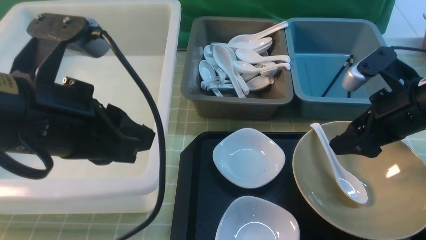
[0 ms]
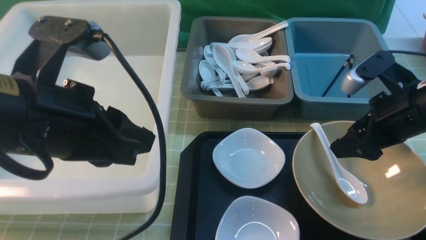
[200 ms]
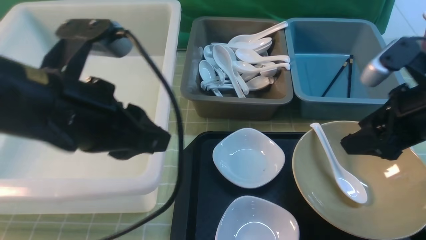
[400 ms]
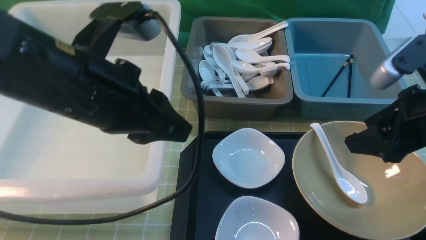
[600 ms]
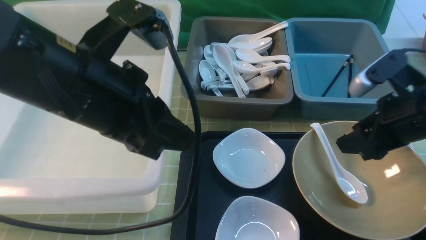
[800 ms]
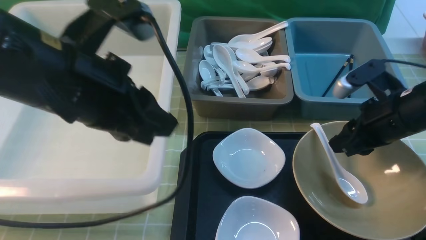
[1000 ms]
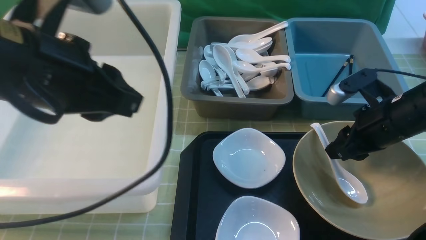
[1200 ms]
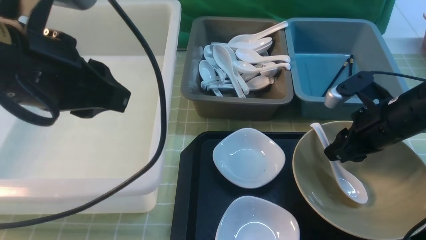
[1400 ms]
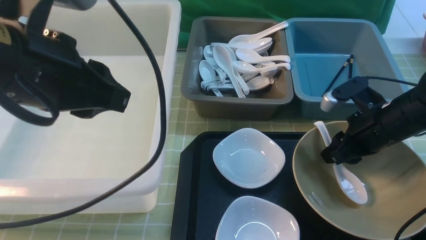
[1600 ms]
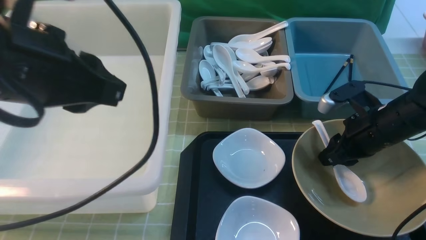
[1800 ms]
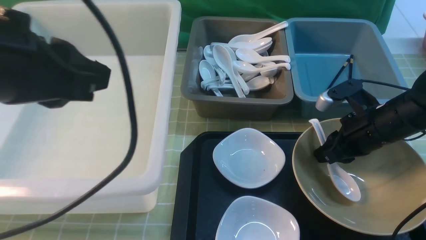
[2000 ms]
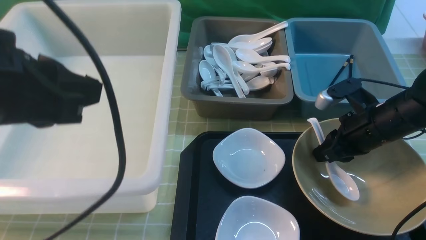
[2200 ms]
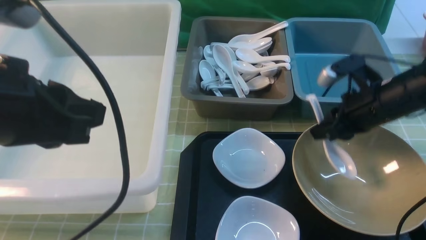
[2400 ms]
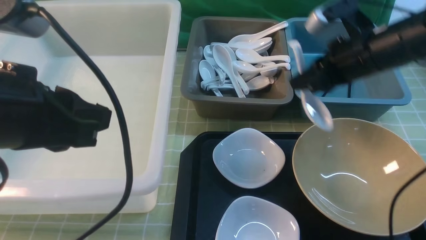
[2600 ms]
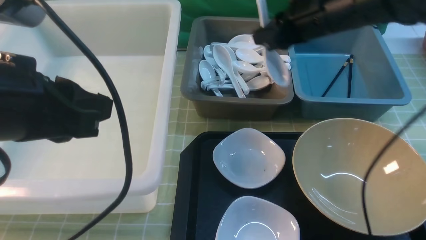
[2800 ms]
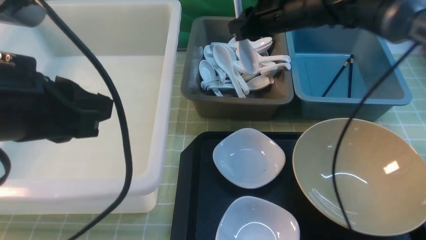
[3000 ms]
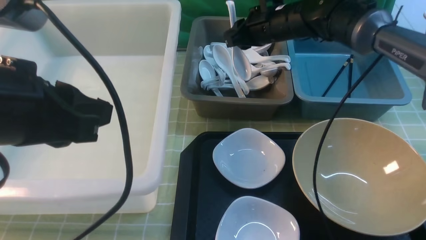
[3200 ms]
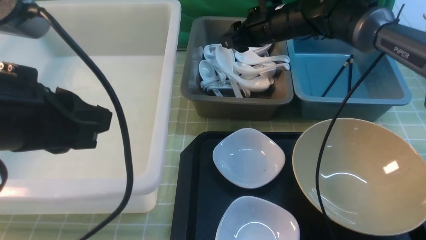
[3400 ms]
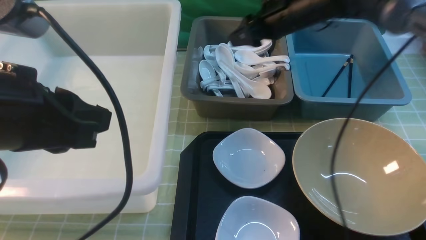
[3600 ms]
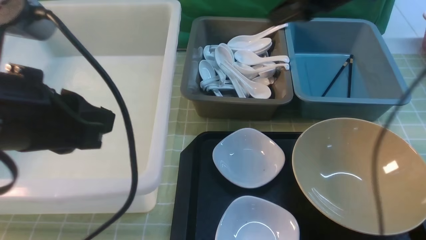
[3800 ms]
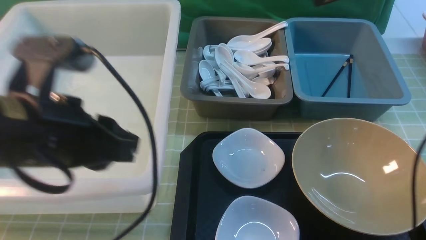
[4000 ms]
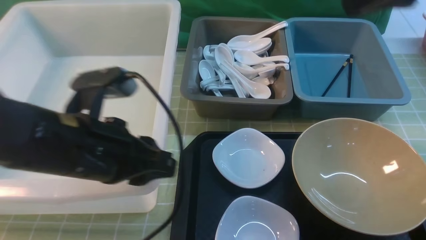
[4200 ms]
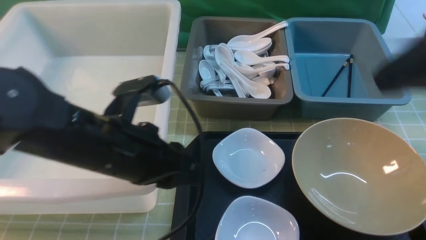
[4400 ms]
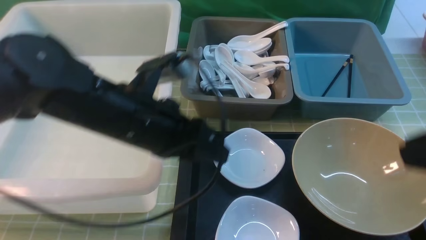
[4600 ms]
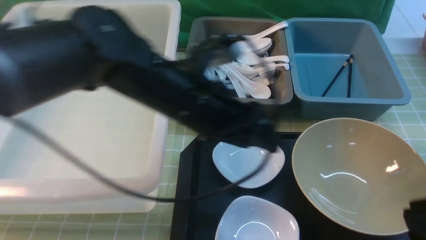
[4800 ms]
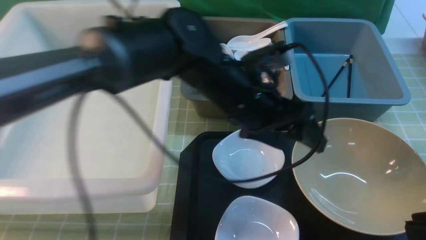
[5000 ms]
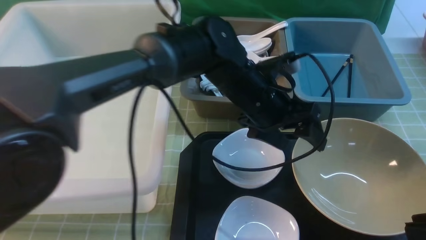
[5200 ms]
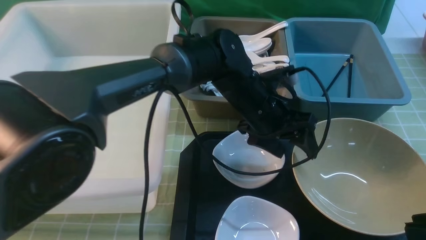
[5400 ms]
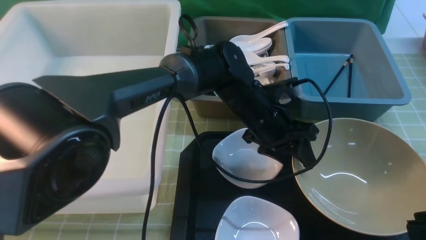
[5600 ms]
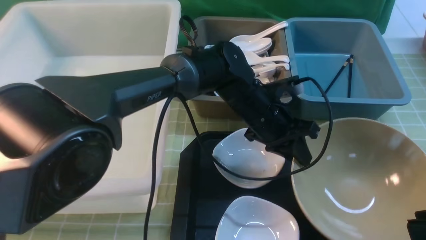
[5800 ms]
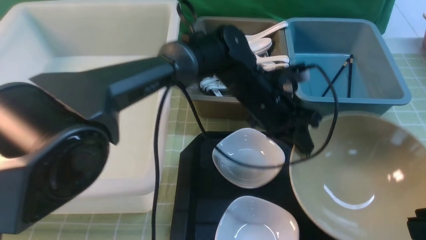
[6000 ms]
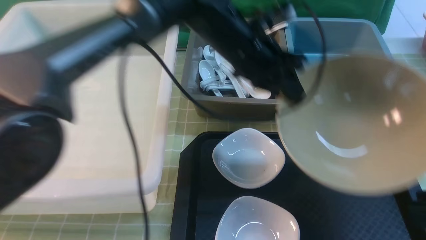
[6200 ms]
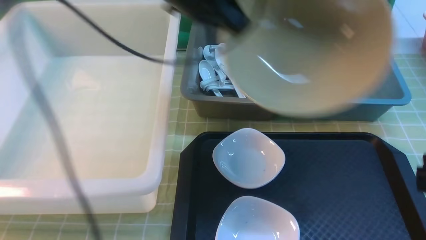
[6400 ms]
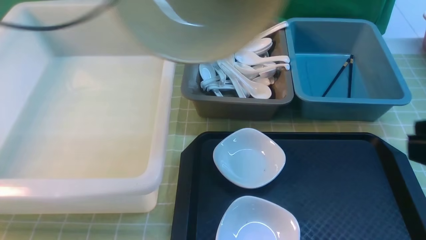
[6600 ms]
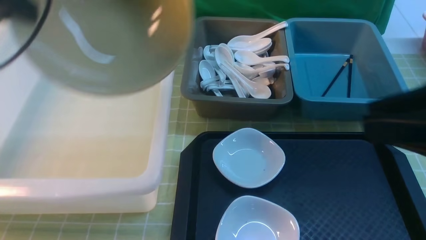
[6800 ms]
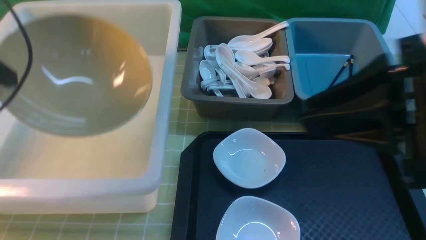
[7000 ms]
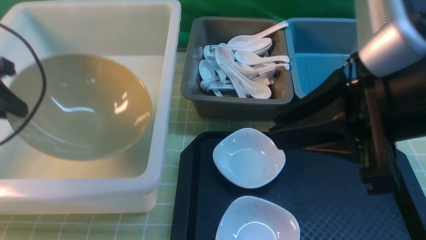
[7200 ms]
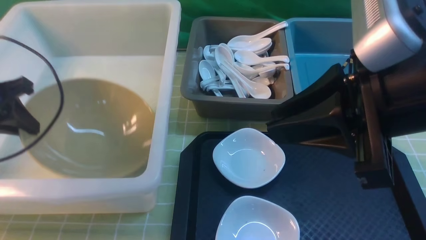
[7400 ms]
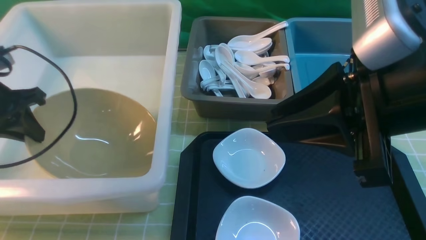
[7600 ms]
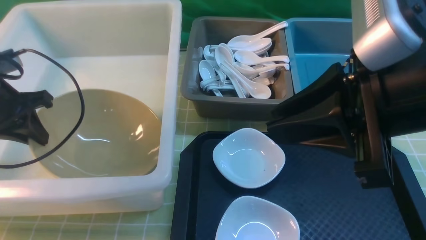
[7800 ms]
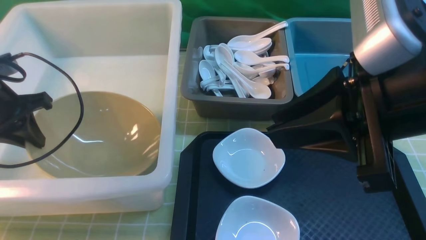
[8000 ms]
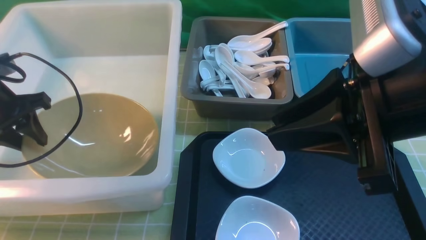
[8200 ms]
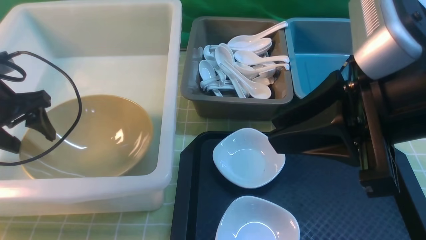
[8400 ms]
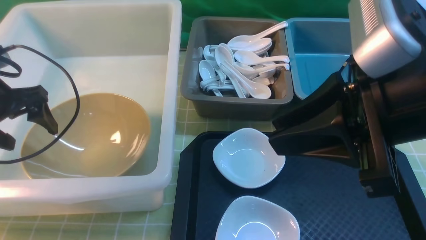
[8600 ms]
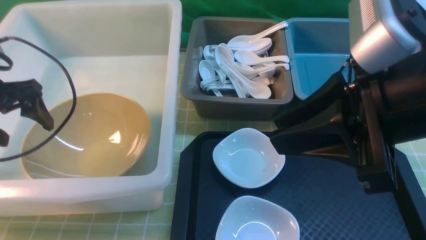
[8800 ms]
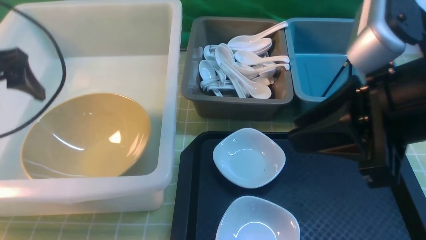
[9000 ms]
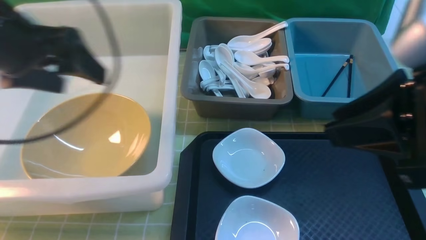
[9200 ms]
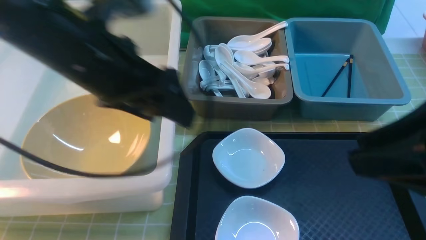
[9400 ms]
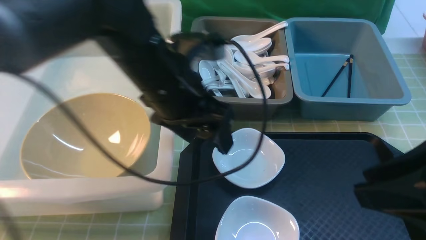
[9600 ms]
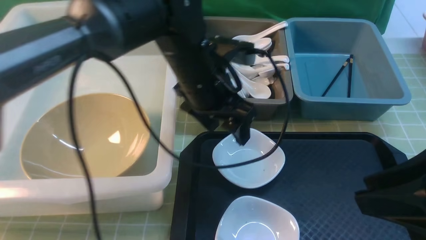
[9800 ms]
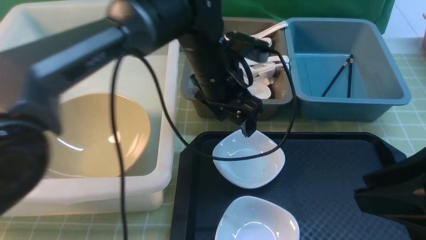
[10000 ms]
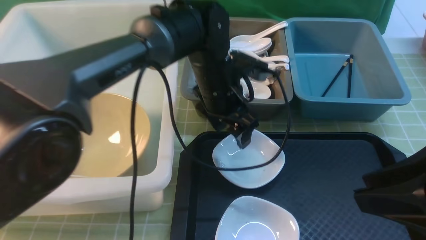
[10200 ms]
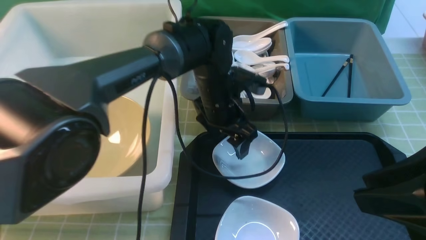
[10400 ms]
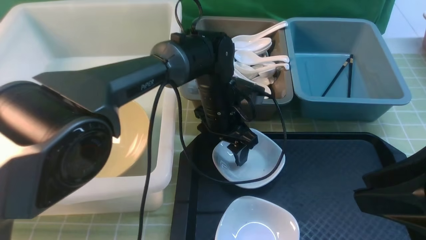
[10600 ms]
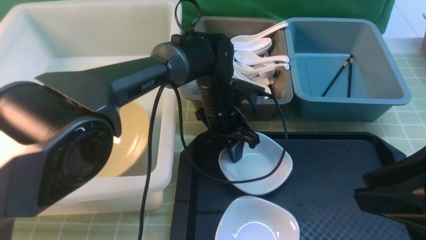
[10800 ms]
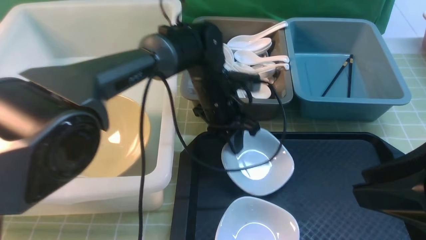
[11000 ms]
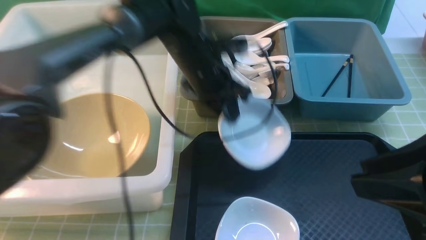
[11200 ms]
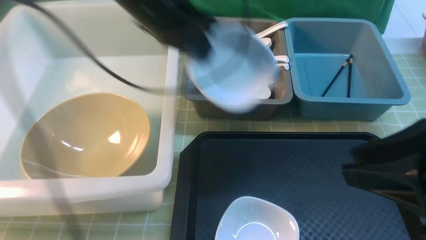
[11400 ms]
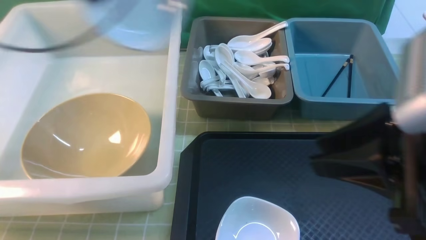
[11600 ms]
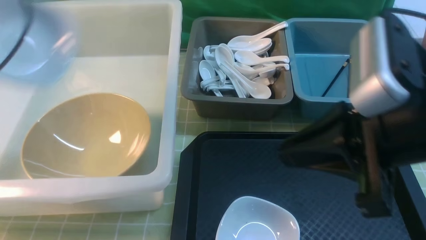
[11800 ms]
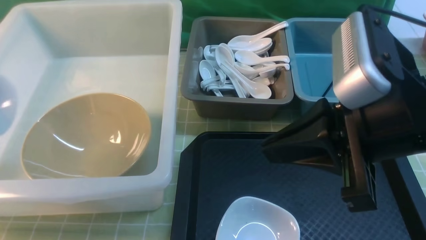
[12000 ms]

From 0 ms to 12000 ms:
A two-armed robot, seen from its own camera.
Task of the whole recording: on green table put chopsticks spoon bowls plates into blue grey white boxes.
Step, from 0 ms to 2400 ms: use the right arm to grab the soup spoon in the middle.
Step, from 2600 ms to 3600 ms: use the right arm to put the soup spoon into the small storage box in the middle.
Step, from 3800 ms to 6200 ms: use the left arm to grab the yellow noodle bowl on the left.
Step, from 6400 ms to 8400 ms: use the left arm to put the noodle bowl into the large storage box on the left.
Step, from 8800 ms to 11000 ms: use the left arm to grab the plate.
From 0 ms to 1600 ms: The right gripper goes roughly 10 cm downward, and closes its fingers.
From 1600 ms to 3000 ms: The right gripper heads forward, to the left and upward, covering roughly 20 cm.
From 3000 ms to 4400 ms: The right gripper goes some 30 cm backward, to the right and upward, and opens and closes again. The left gripper is displaced downward, to the right and forward by approximately 15 cm.
From 4400 ms to 6000 ms: The left gripper goes some 20 cm to the right and forward, and opens and closes again; the right gripper heads backward and downward, covering some 15 cm.
From 6000 ms to 7600 ms: The left gripper moves to the left, some 40 cm, while the right gripper shifts about 15 cm to the left, forward and upward.
From 7600 ms to 9000 ms: The left gripper shifts some 10 cm upward and to the right, and opens its fingers.
From 9000 ms to 10400 ms: The left gripper goes approximately 30 cm to the right and downward; the right gripper moves backward, about 5 cm.
From 10400 ms to 12000 ms: The right gripper shifts roughly 10 cm forward and to the left, and closes. Meanwhile the left gripper is displaced to the left and upward by approximately 40 cm, and closes.

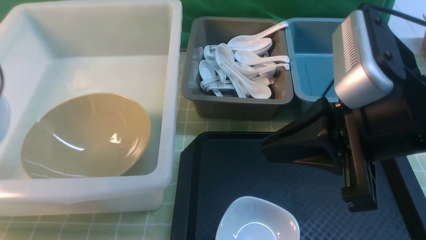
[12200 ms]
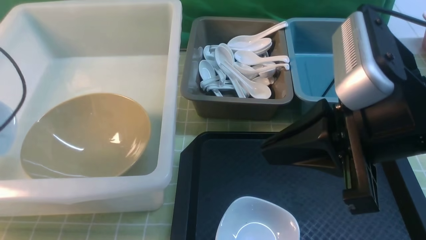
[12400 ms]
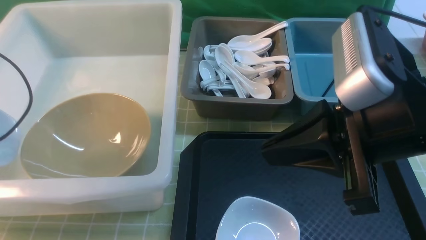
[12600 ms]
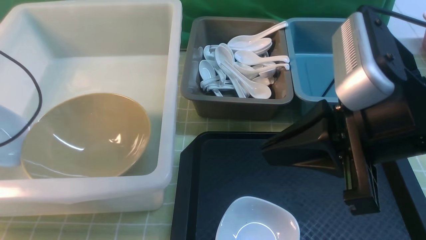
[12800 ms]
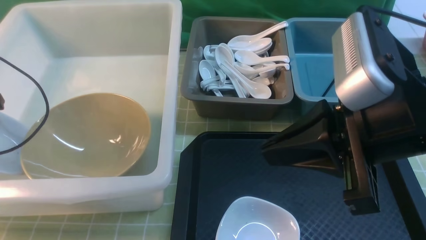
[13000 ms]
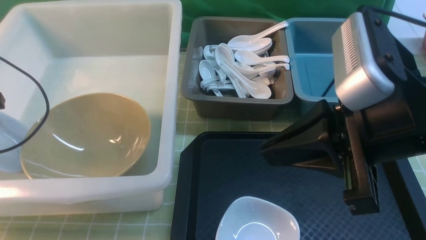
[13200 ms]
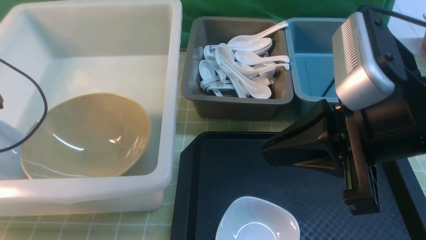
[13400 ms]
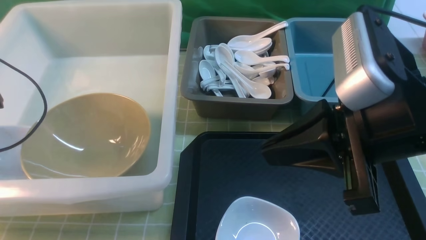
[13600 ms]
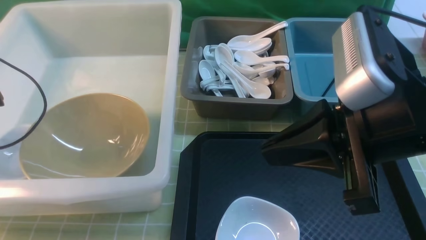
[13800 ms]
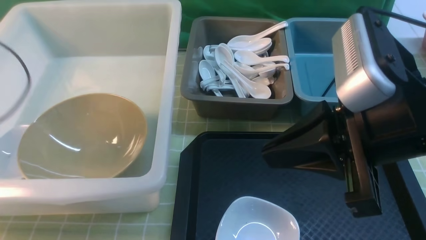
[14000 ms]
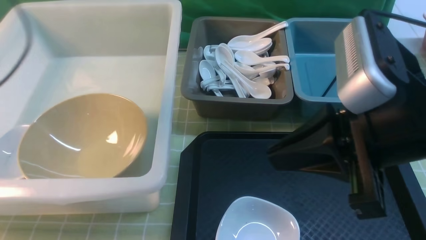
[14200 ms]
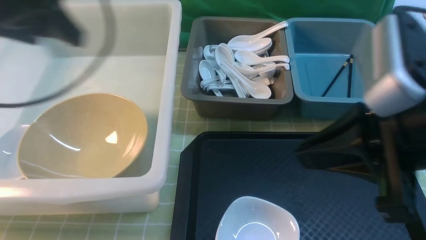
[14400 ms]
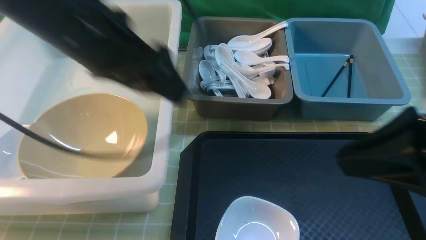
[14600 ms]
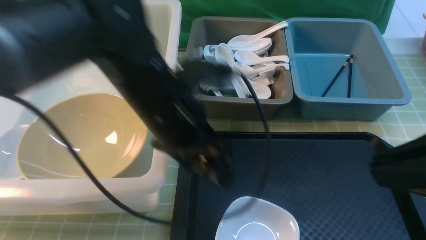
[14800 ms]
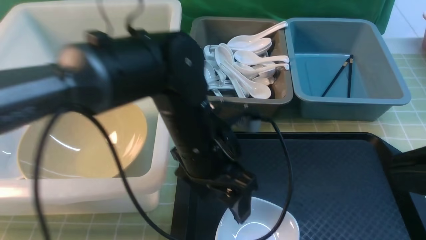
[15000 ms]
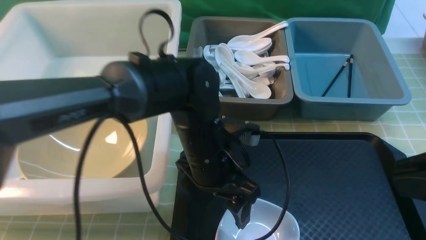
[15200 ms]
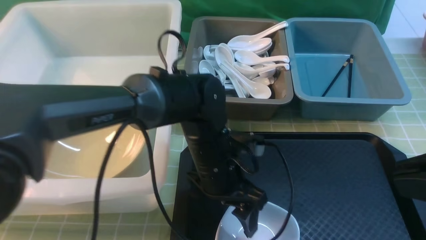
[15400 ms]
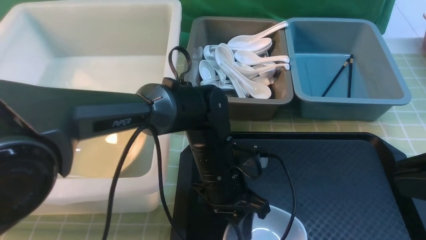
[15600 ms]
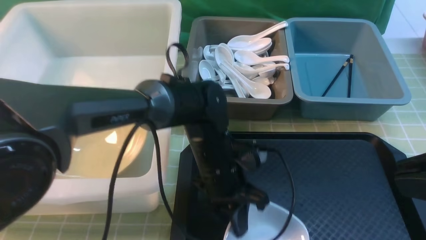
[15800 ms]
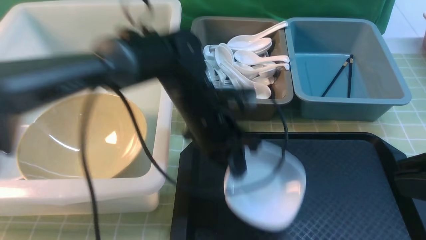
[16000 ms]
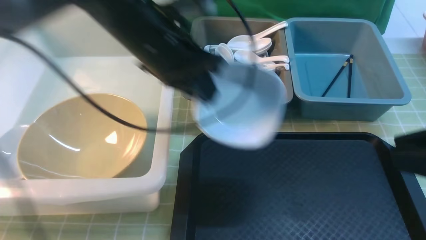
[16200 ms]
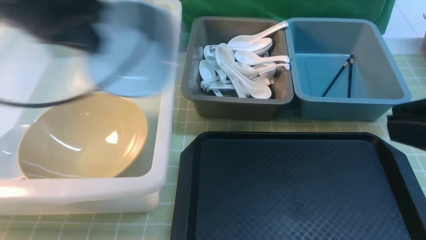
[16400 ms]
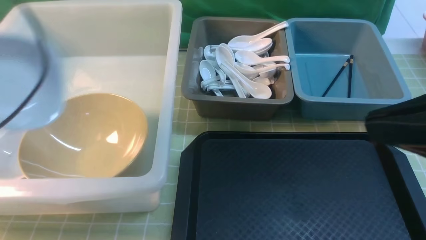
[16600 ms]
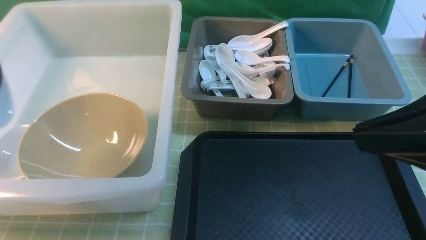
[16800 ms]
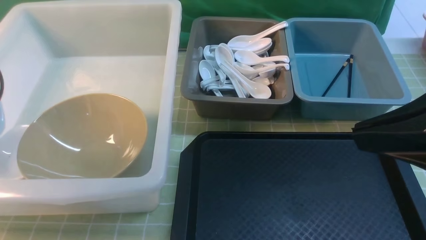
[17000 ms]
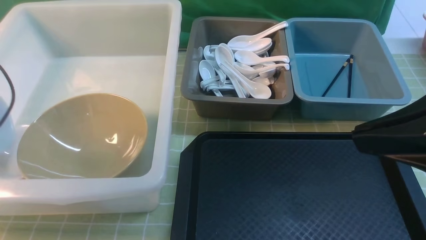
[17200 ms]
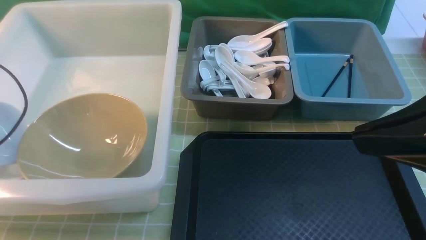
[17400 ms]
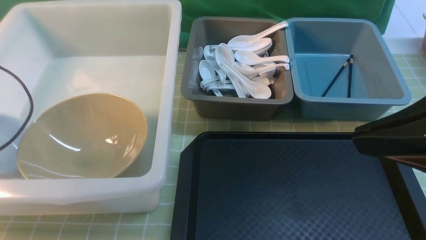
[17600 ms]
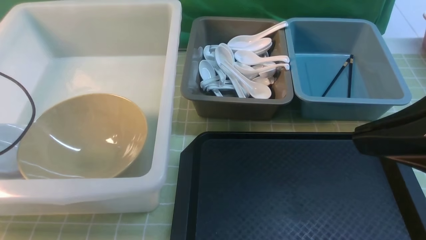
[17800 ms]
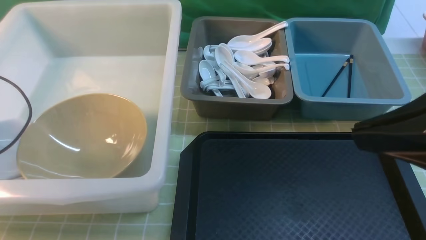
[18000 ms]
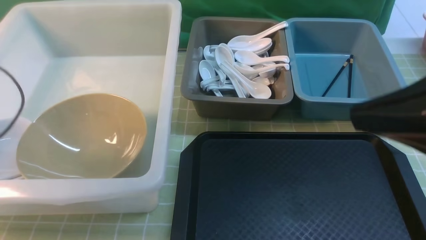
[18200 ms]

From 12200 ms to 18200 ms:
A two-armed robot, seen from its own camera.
Task of the whole recording: on green table put chopsticks spoon bowls plates into blue grey white boxes.
Step, from 12200 ms to 13600 ms: use the left arm to put the plate into the large storage box on the left.
Step, from 13800 ms to 15800 ms: use the left arm to grab the plate.
Step, from 16000 ms to 18200 ms: use the left arm to put the plate into the large storage box on the left.
From 12200 ms to 13800 ms: The left gripper travels downward and forward by approximately 10 cm, and opens.
From 13800 ms to 15200 ms: The right gripper heads backward and to the right, covering approximately 10 cm; the left gripper heads to the right, covering some 40 cm.
From 15200 ms to 16600 ms: The left gripper shifts some 35 cm to the left and upward, and closes.
From 16600 ms to 18200 ms: The left gripper is displaced downward and to the left by about 10 cm, and opens.
